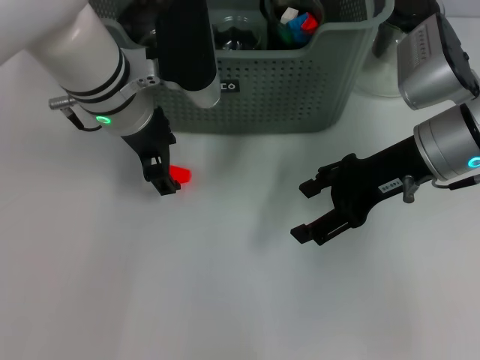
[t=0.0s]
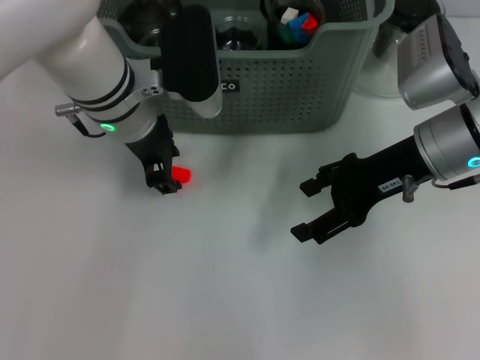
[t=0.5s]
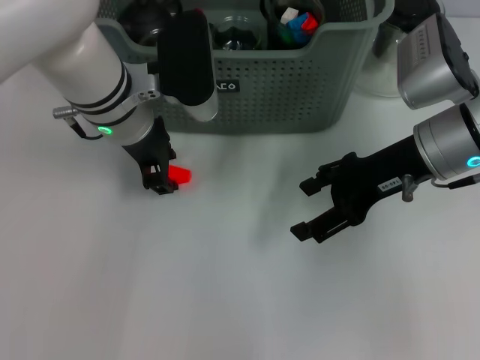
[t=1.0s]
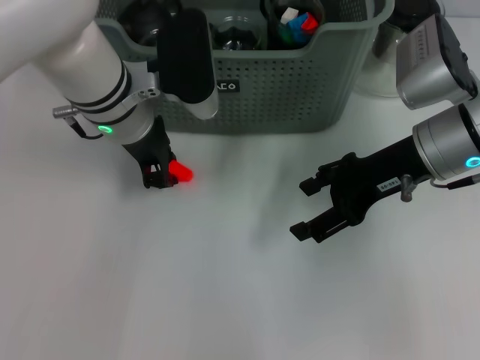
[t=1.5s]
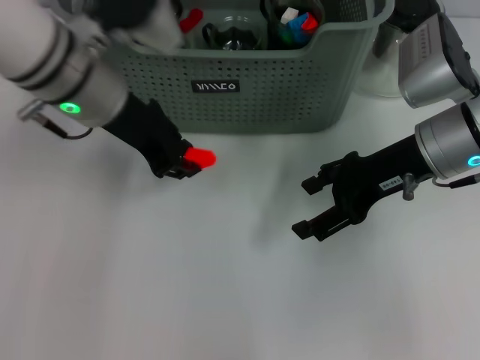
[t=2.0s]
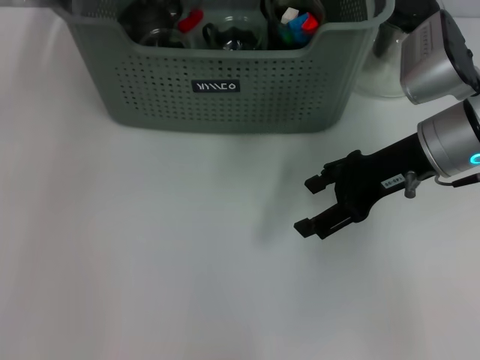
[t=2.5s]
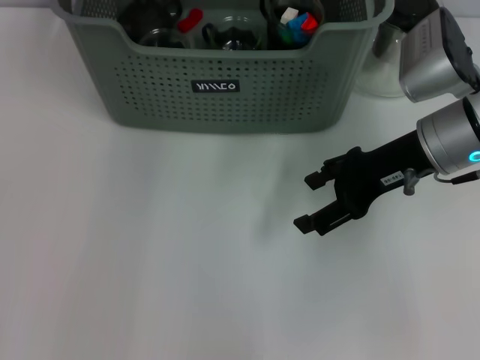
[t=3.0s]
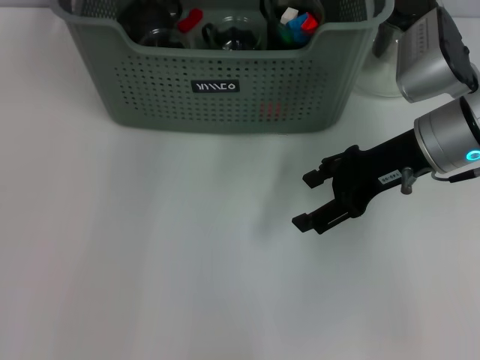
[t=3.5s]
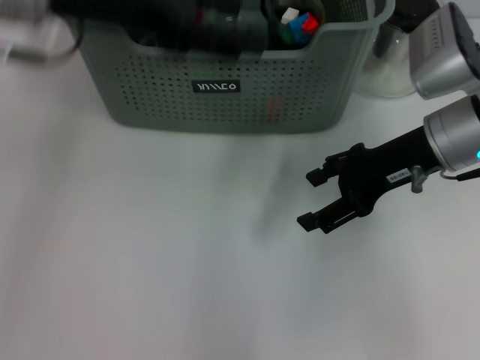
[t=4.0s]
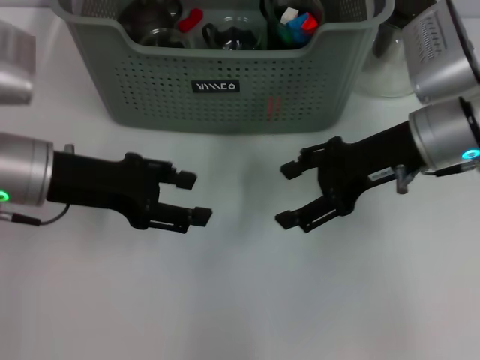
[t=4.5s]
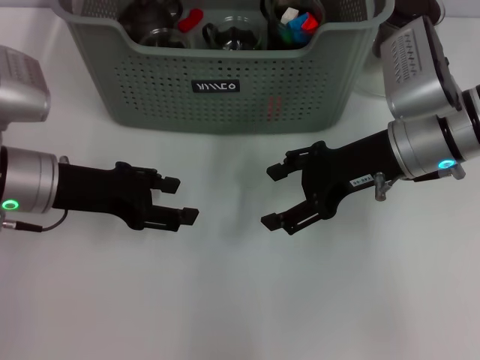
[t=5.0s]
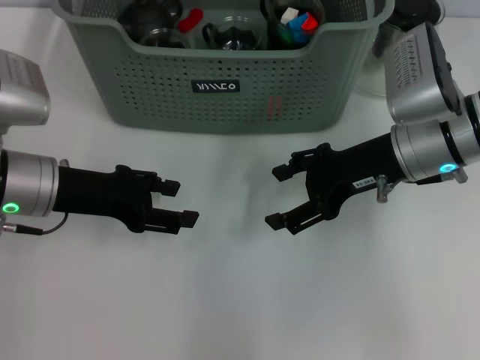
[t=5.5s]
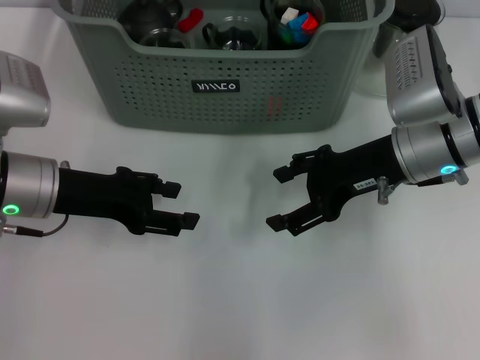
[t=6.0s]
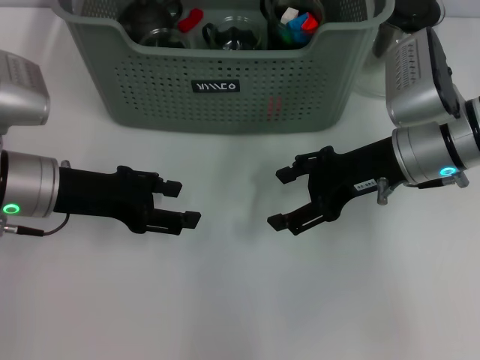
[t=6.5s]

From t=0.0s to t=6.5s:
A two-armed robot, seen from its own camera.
Task of the whole recording: pick up the teacup on the table and place it into the storage bin, pick up the block on the table and place it into the storage bin.
Step, from t=1.5s to t=3.0s: Place the orange block in the storage box with left gripper.
From t=0.0s to t=2.0s: The left gripper ends up roughly 5 cm from where it was, and closes.
From t=2.0s to t=4.5s: The left gripper goes approximately 10 cm to the left, backward and downward, and opens up.
From t=4.5s to t=6.5s: The grippers stay close to where they were, moving slightly.
